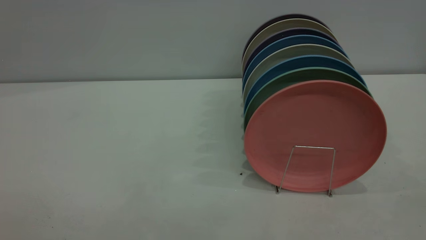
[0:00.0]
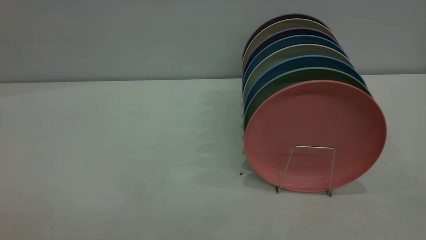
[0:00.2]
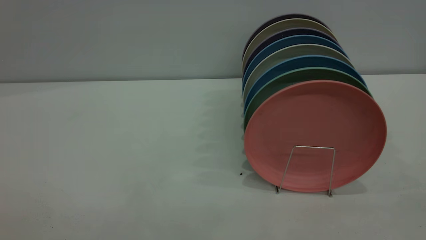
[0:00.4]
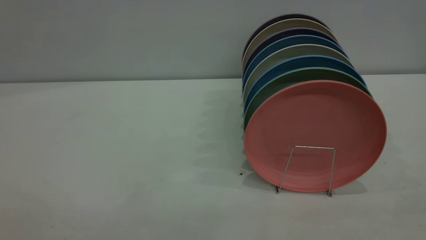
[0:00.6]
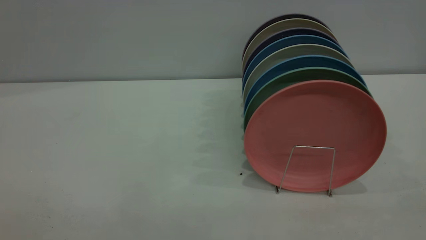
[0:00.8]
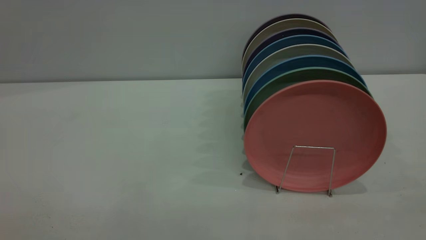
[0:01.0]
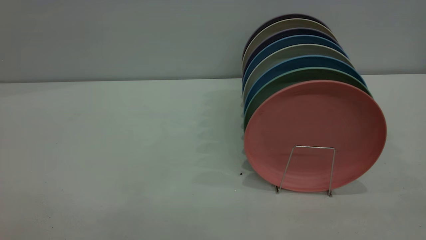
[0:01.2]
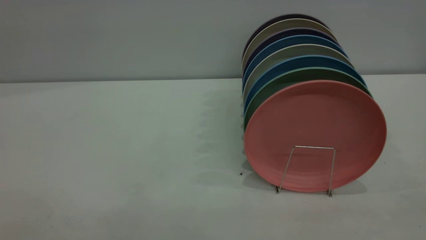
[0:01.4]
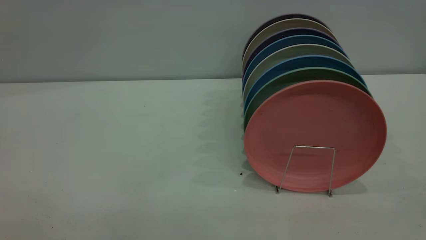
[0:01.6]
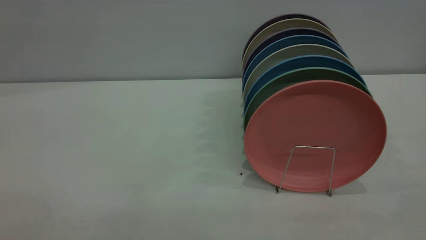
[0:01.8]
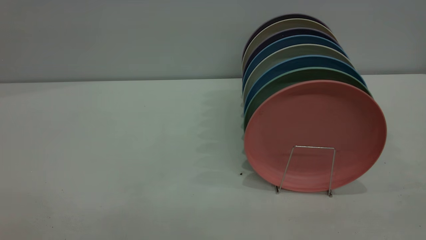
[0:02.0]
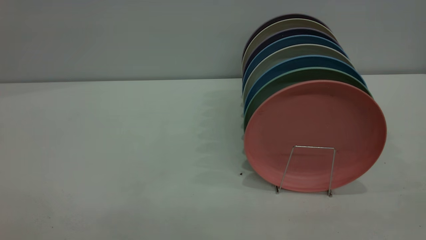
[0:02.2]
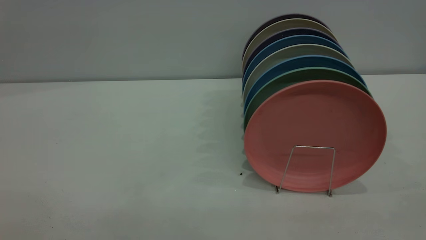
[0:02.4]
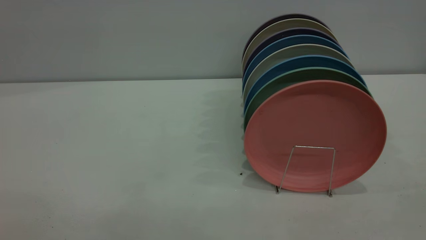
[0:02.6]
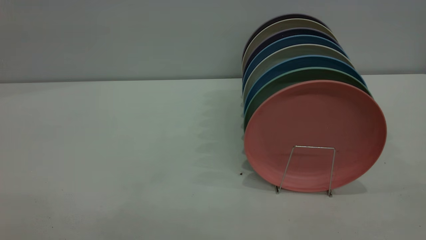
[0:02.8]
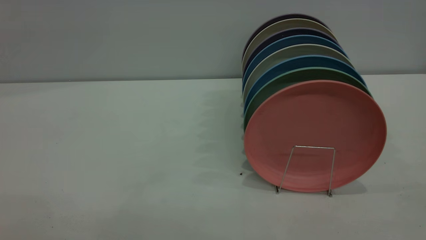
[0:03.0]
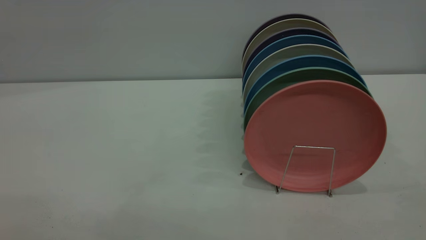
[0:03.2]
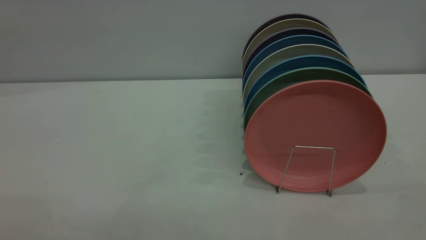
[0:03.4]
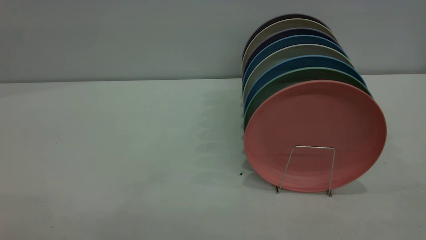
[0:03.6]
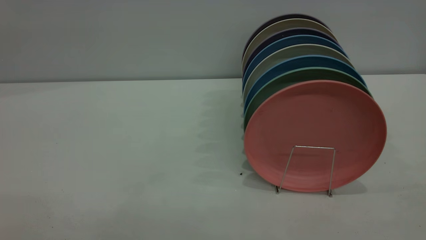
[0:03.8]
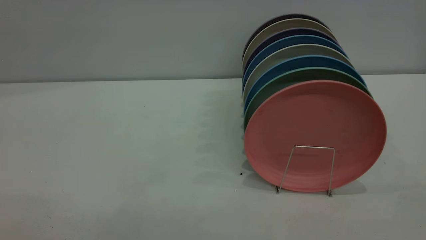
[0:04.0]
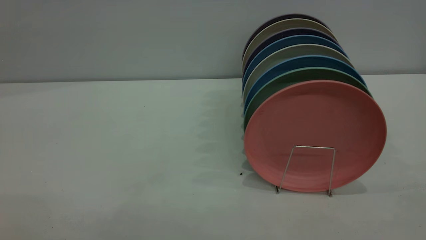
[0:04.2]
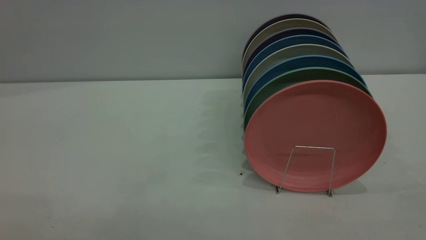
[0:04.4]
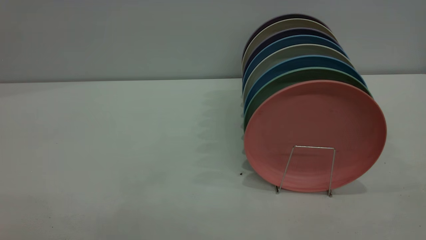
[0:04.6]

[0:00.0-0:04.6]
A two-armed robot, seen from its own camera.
Task of the whole recording: put the plate on the plate rack.
0:03.0 to 0:04.6: The two grippers keep their place.
